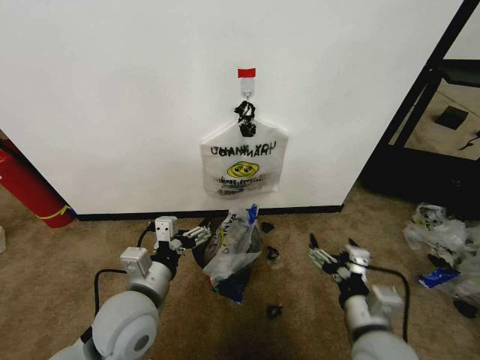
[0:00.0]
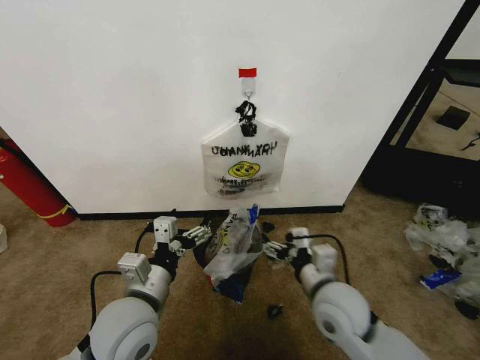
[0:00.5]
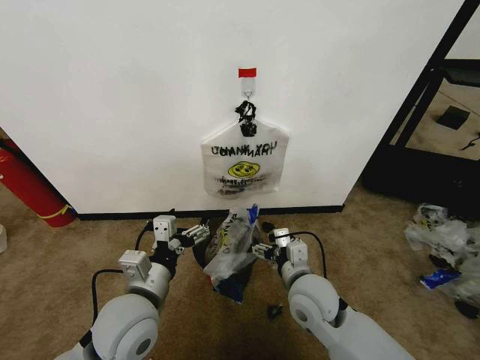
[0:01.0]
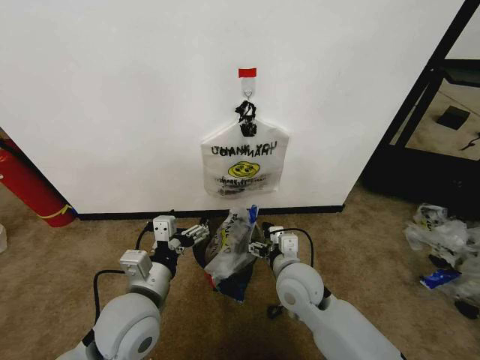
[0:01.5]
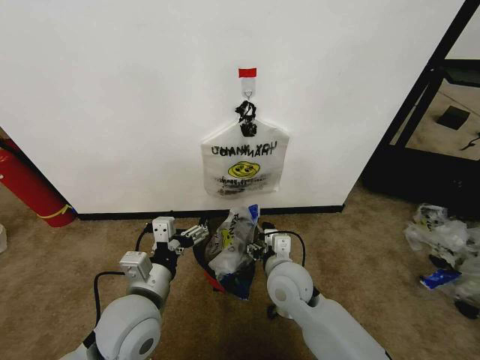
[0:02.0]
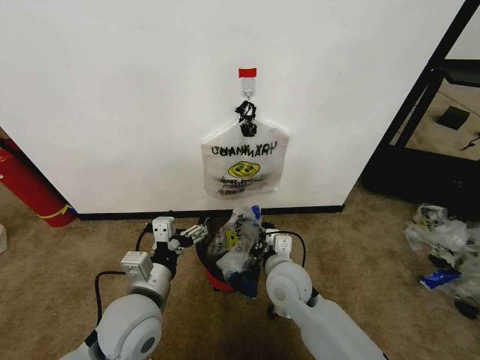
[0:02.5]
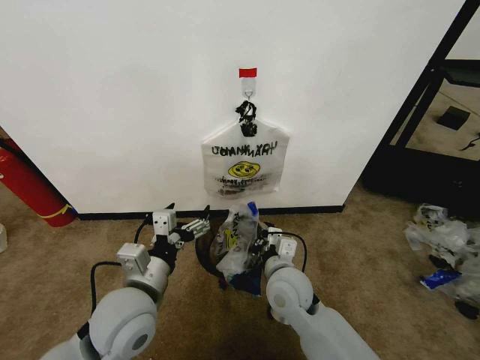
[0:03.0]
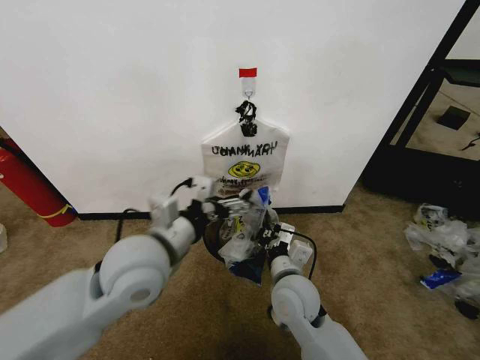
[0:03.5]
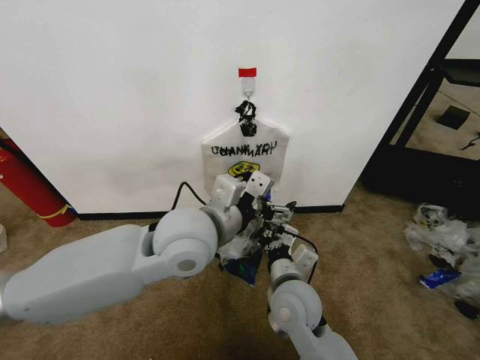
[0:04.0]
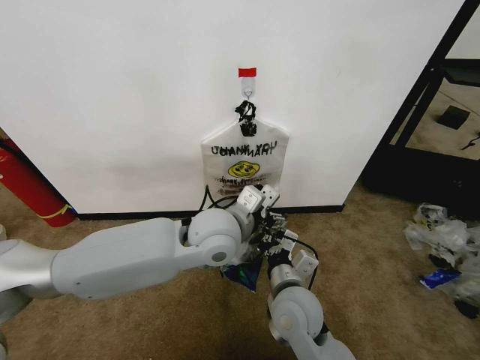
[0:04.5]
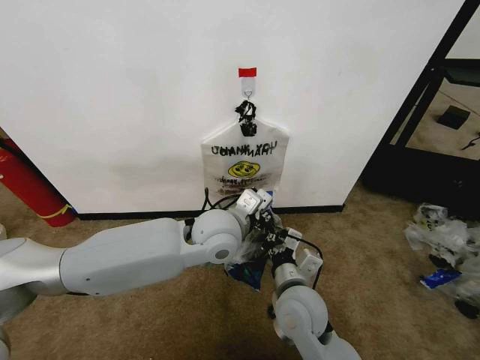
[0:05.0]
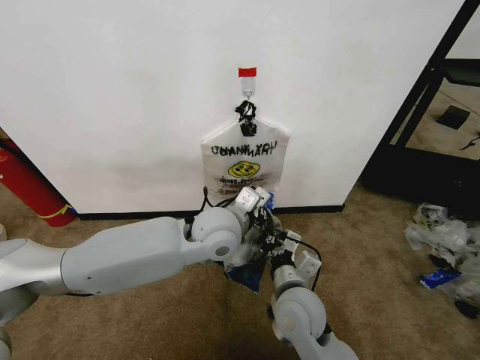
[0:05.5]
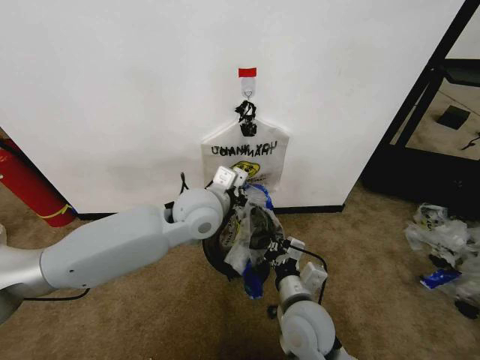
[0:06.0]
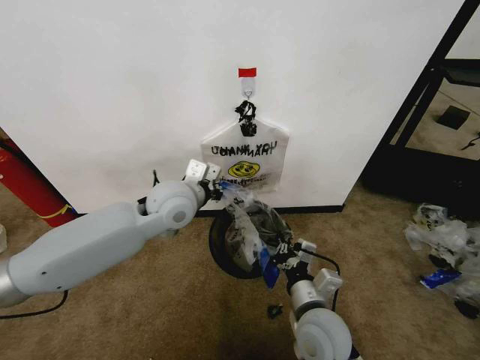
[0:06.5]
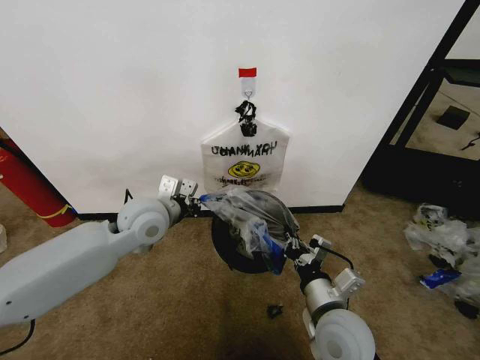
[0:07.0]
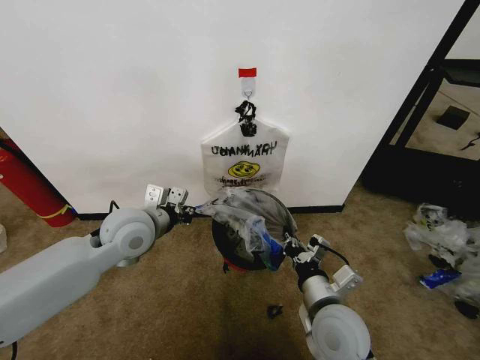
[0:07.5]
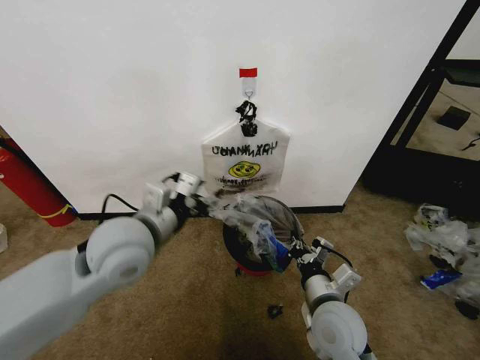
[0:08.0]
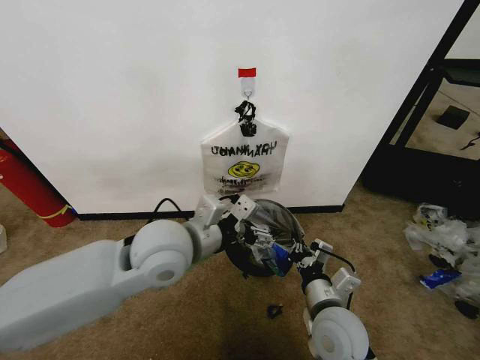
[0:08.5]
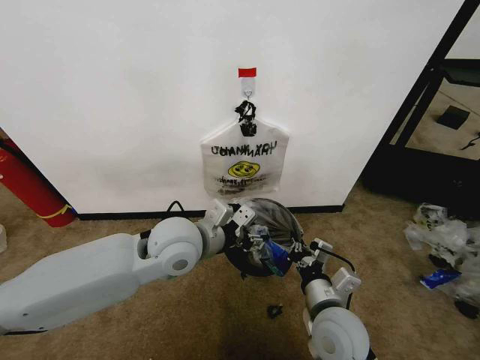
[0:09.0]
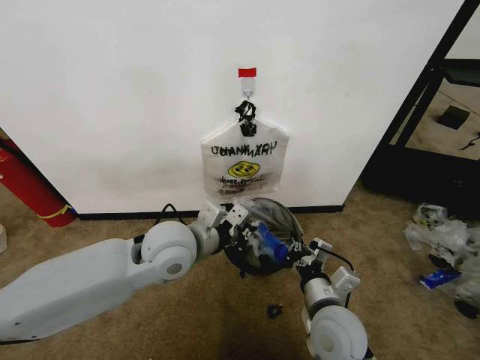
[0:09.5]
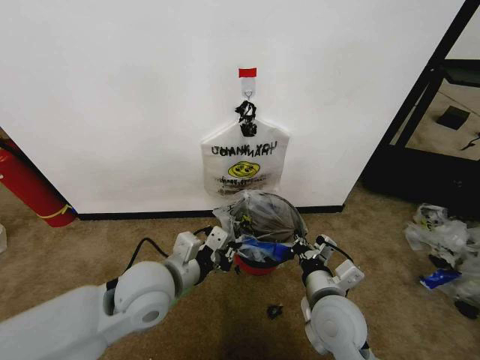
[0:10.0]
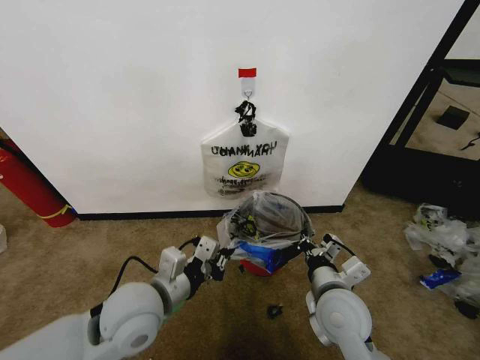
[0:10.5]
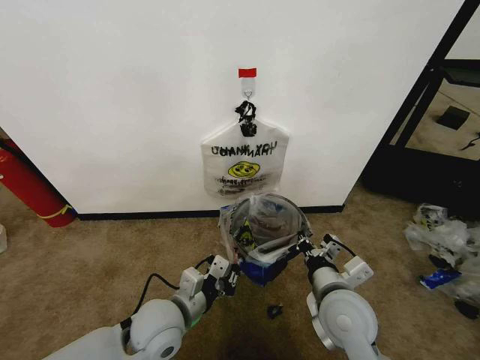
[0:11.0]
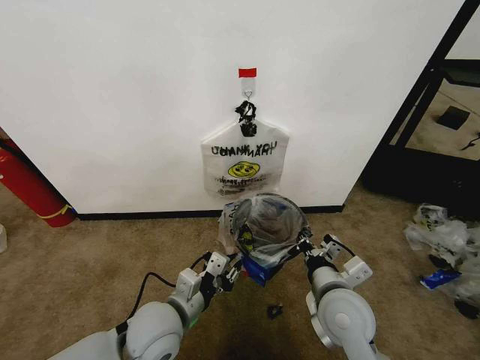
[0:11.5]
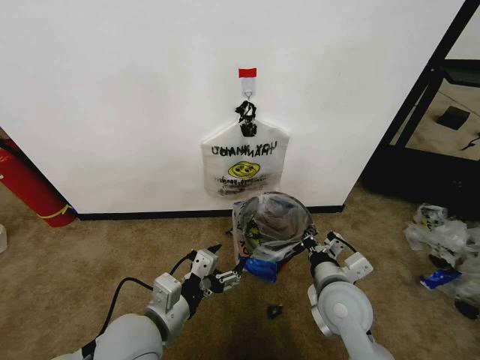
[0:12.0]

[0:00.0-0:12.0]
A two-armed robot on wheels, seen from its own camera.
Task of the whole recording: Pick up the garbage bag from the wall and place it over the trash bin.
0:00.0 to 0:02.0: The right gripper heads forward and to the left, covering roughly 20 cm.
0:02.0 to 0:04.0: The right gripper closes; the left gripper is displaced upward, to the right and forward by about 20 cm.
0:04.0 to 0:06.0: The left gripper is displaced forward by about 10 cm, and closes up.
0:06.0 to 0:08.0: The left gripper goes about 15 cm to the left and backward, and opens its fingers, while the right gripper is displaced to the right by approximately 5 cm.
0:08.0 to 0:10.0: The left gripper is displaced downward by some 5 cm, and closes its fingers.
0:10.0 to 0:12.0: The left gripper goes about 10 cm backward, travels downward and back again, roughly 10 cm each way, and opens.

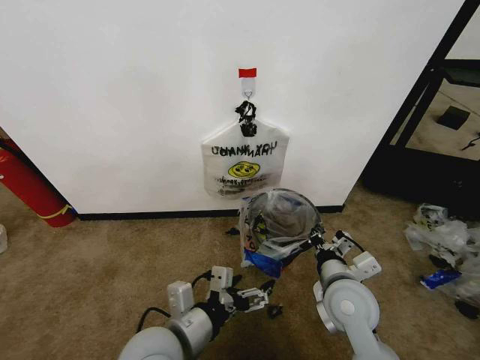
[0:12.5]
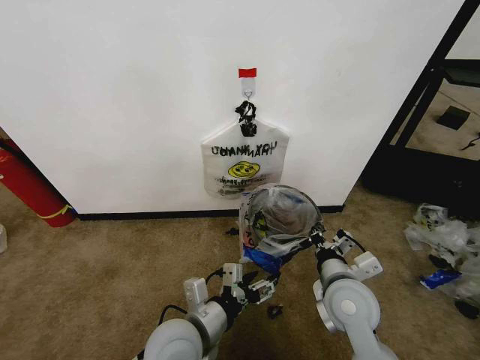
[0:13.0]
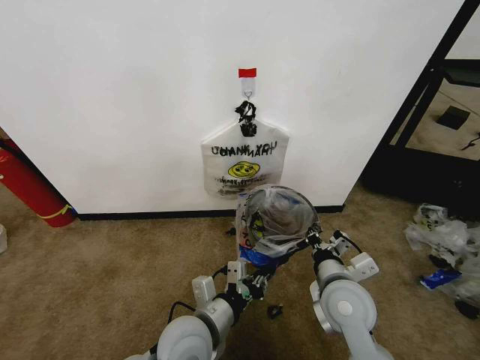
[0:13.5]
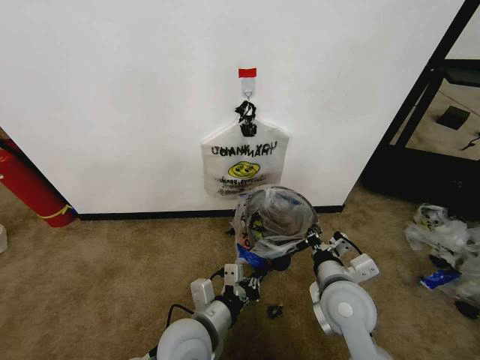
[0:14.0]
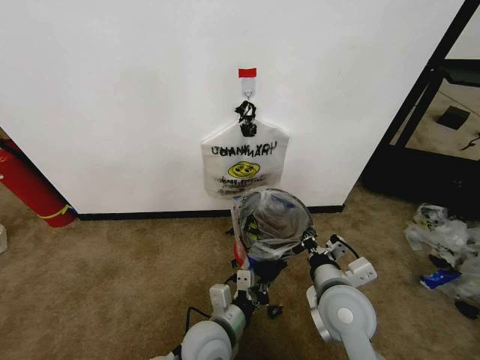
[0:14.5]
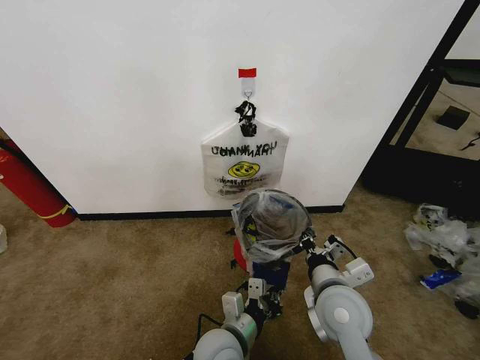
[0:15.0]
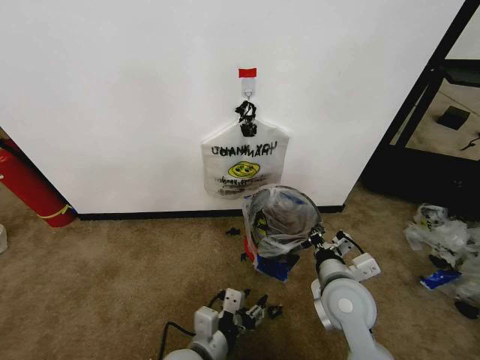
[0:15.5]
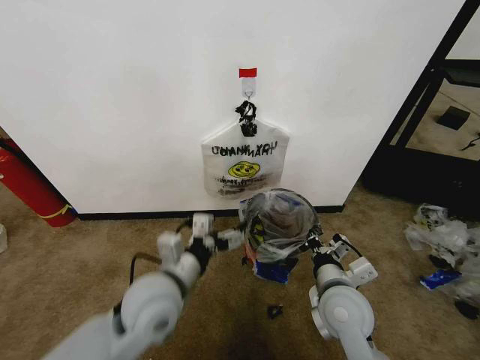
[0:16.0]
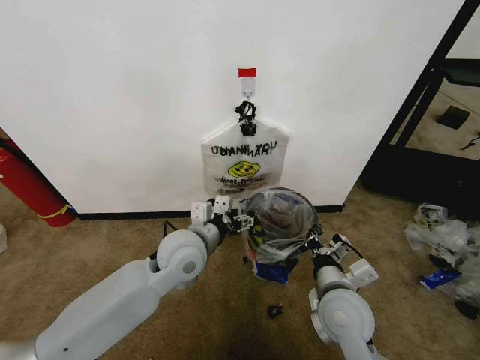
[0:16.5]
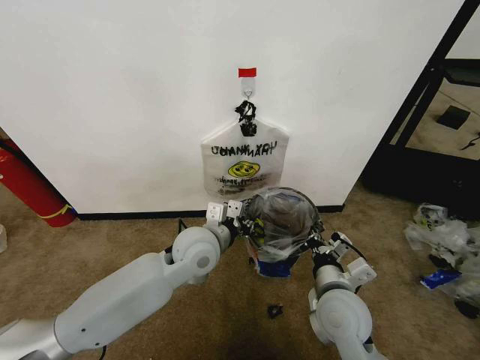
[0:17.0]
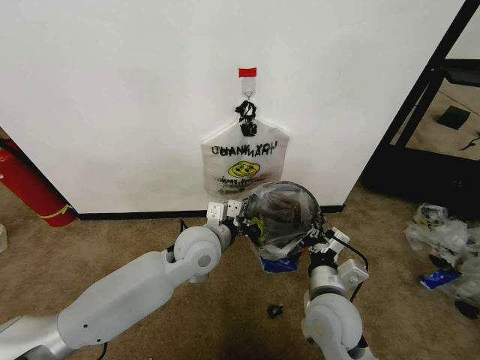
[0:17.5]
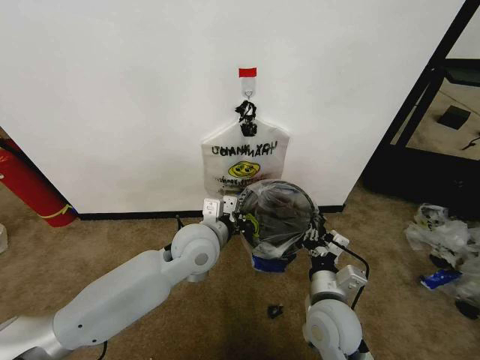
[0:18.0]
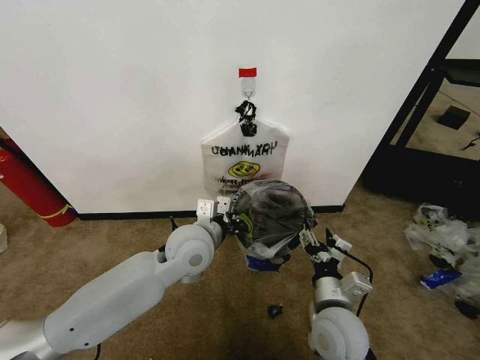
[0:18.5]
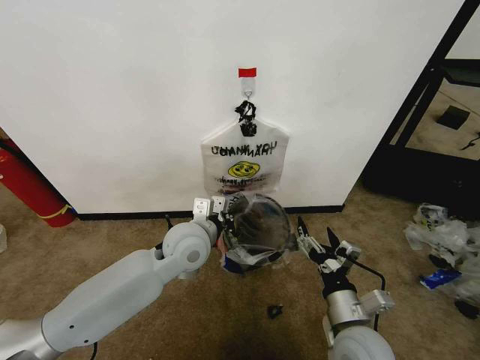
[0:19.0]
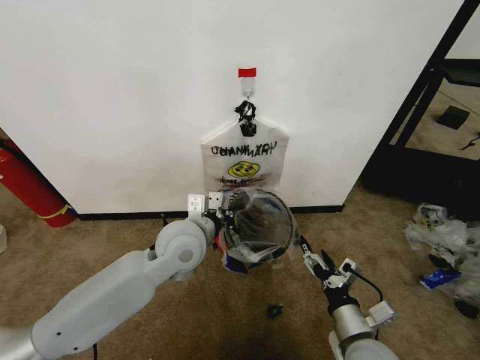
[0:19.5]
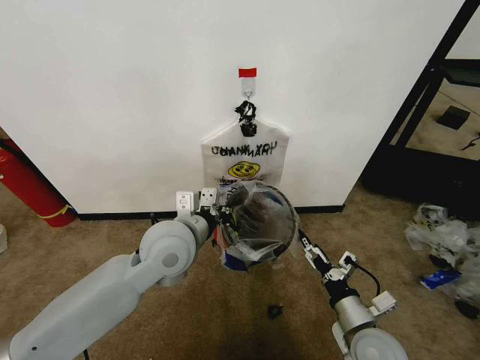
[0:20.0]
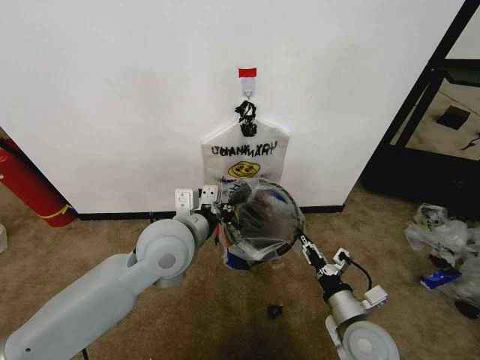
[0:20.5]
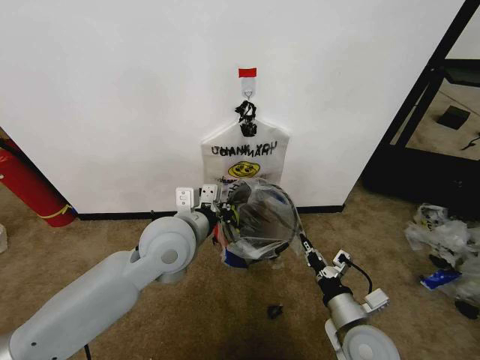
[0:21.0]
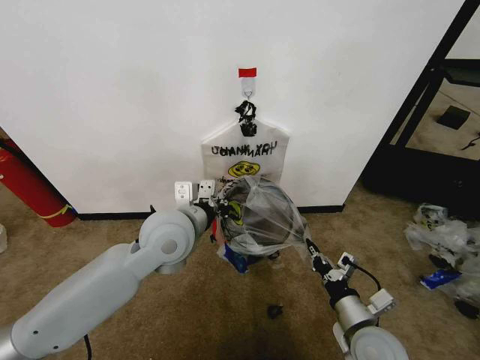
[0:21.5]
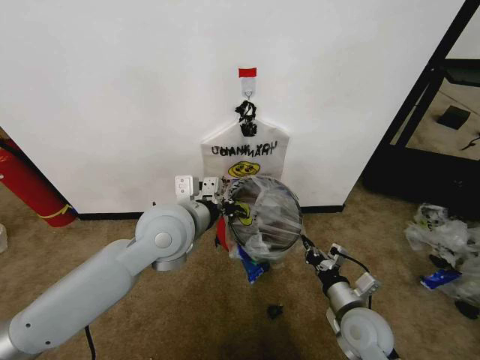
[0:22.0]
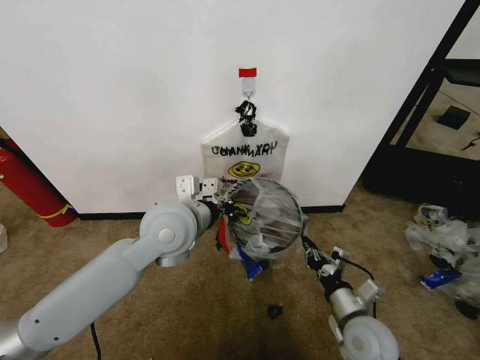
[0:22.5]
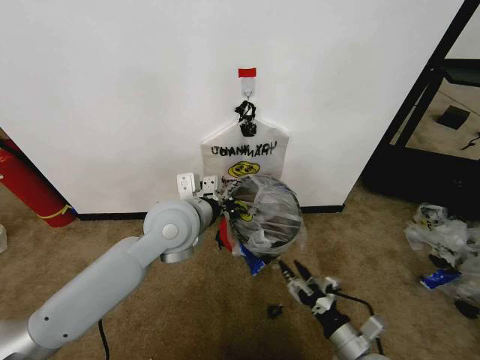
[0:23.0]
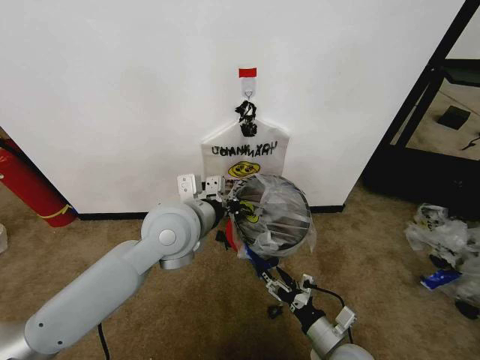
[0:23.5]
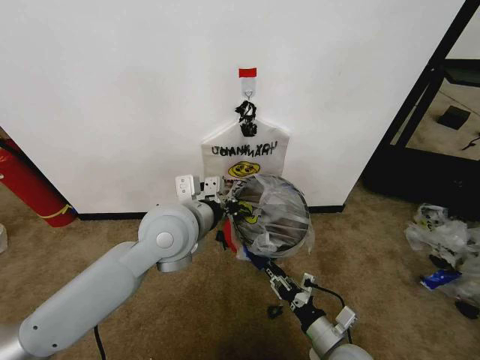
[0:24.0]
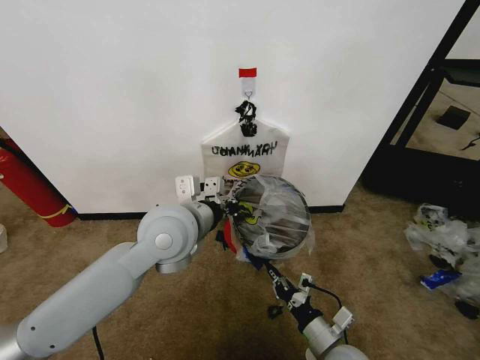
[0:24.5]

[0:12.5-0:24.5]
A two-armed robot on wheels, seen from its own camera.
Task of the whole recording: Pick up the garbage bag from the wall and place it over the trash bin.
0:12.5 to 0:14.5: The left gripper heads downward and to the right, covering roughly 15 cm, and closes.
0:14.5 to 0:16.5: The left gripper goes approximately 20 cm upward and forward, and opens up.
0:16.5 to 0:18.5: The left gripper closes. The right gripper opens its fingers.
0:18.5 to 0:20.5: The left gripper is displaced upward by some 5 cm; the right gripper moves to the right, roughly 5 cm.
0:20.5 to 0:22.5: The right gripper closes its fingers.
0:22.5 to 0:24.5: The right gripper moves some 5 cm, and opens and closes again.

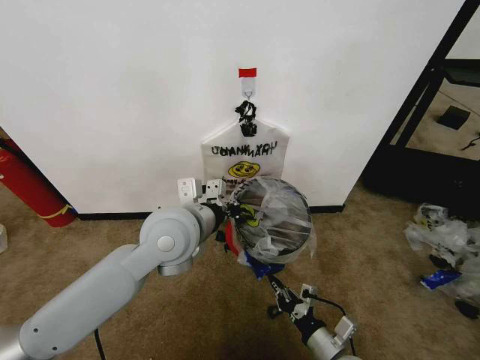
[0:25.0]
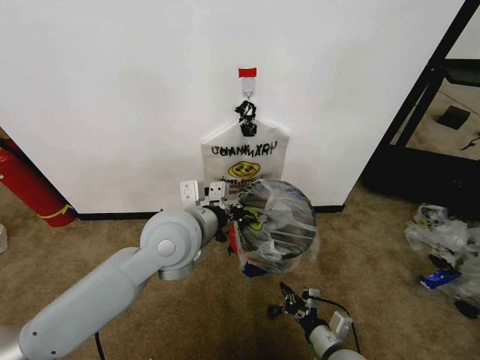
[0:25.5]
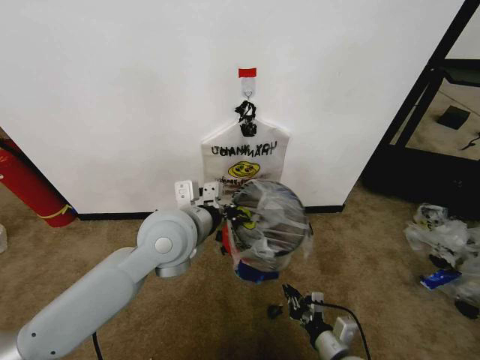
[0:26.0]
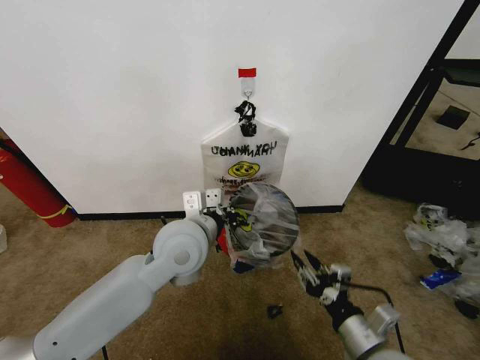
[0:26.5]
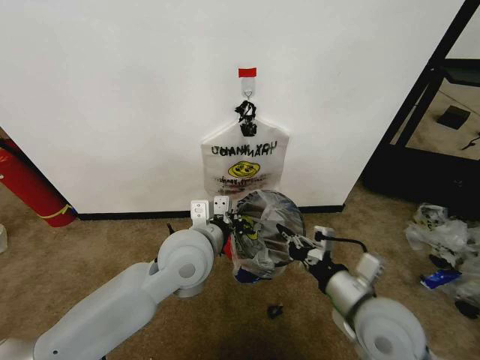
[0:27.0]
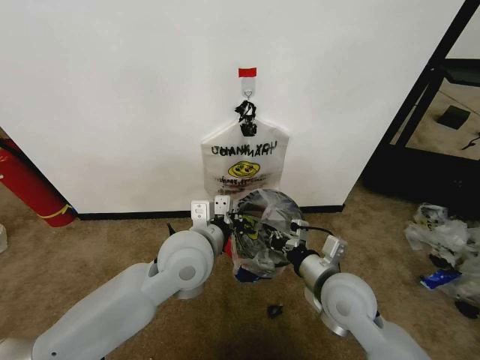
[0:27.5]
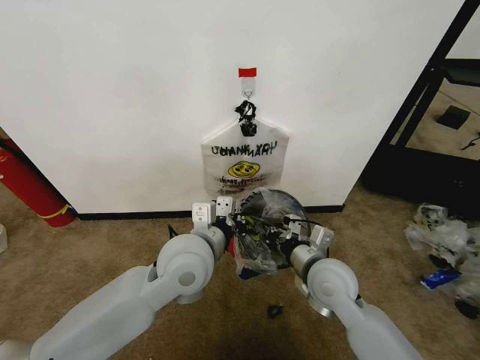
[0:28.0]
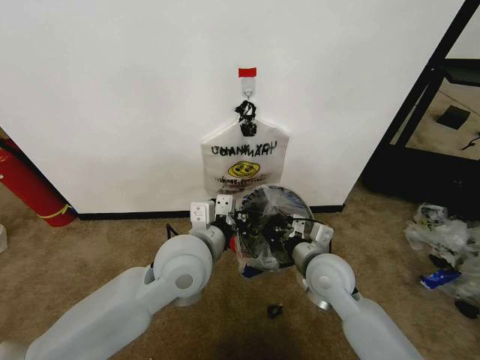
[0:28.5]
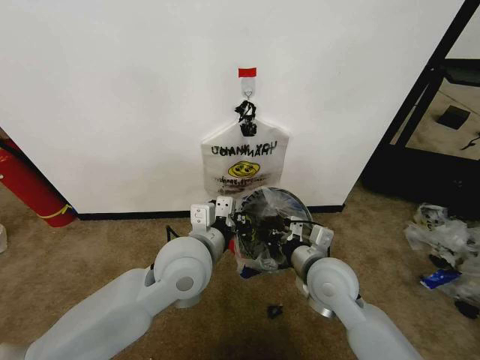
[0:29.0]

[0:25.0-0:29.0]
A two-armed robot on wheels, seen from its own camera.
Task of the whole recording: Pick up the garbage bag from the wall and place it over the trash bin.
0:25.0 to 0:27.0: The right gripper goes some 20 cm upward, and opens, then closes again. Meanwhile the left gripper moves some 5 cm.
0:27.0 to 0:29.0: The right gripper goes approximately 10 cm forward and to the left.
